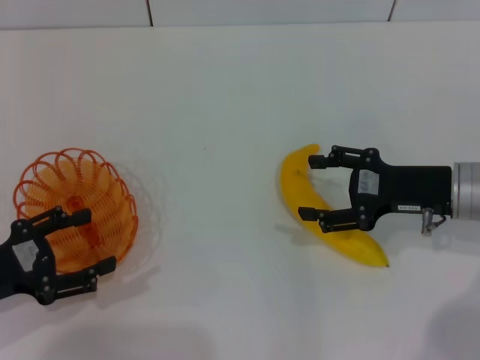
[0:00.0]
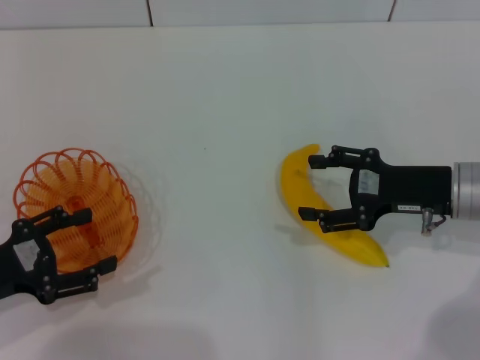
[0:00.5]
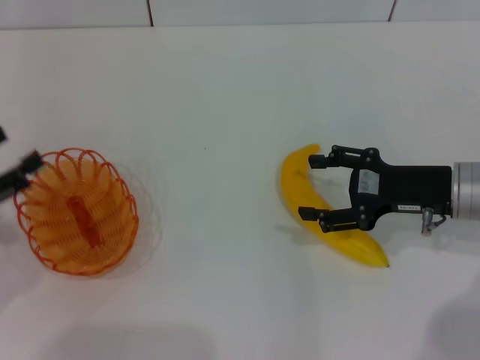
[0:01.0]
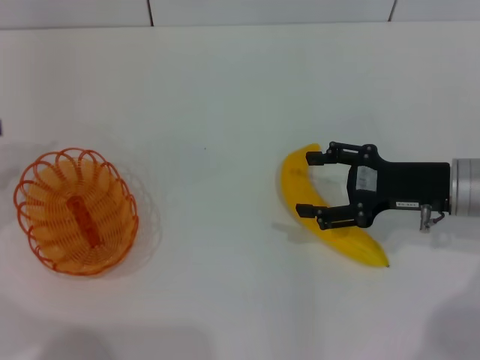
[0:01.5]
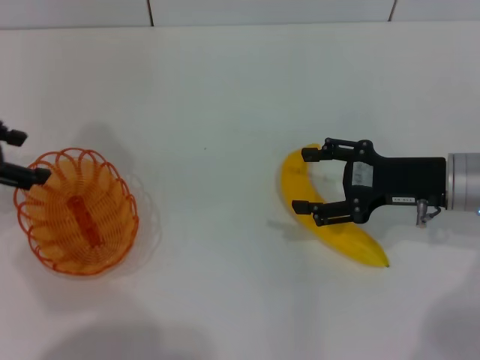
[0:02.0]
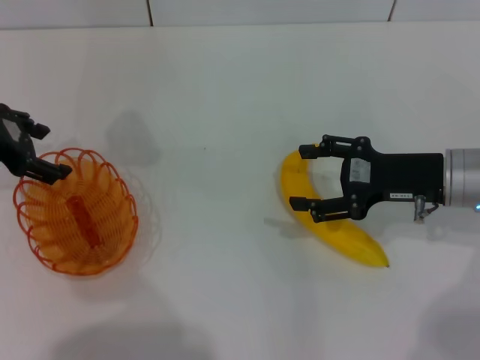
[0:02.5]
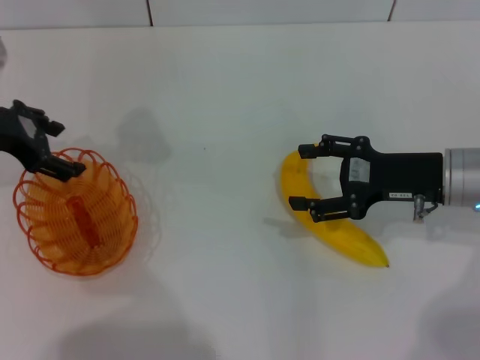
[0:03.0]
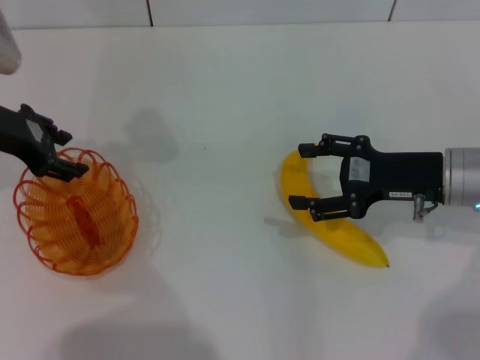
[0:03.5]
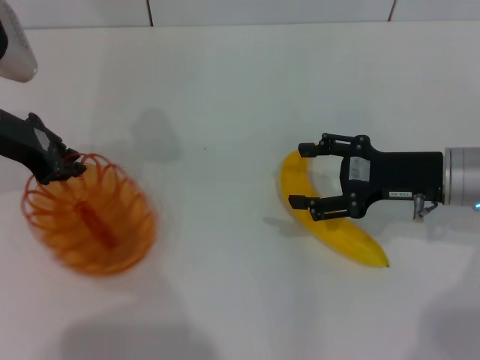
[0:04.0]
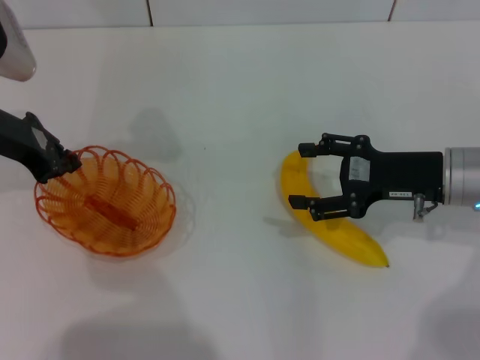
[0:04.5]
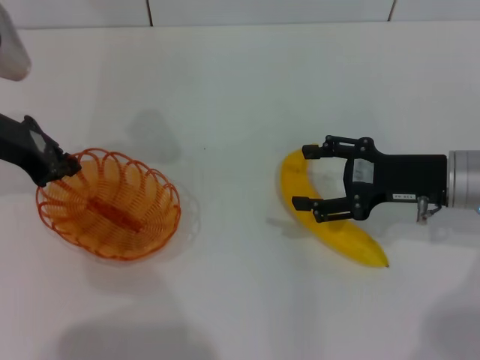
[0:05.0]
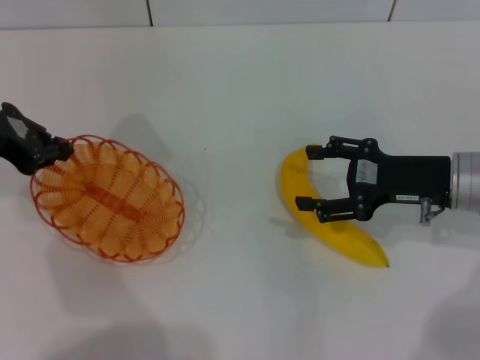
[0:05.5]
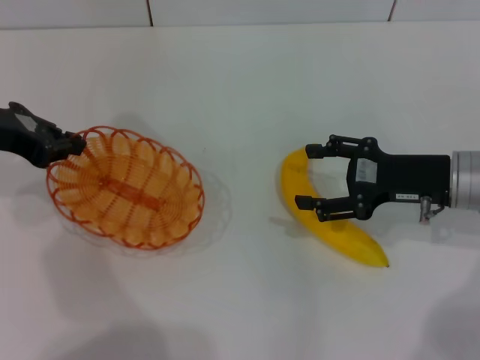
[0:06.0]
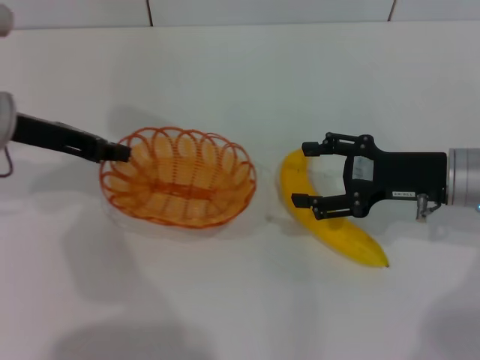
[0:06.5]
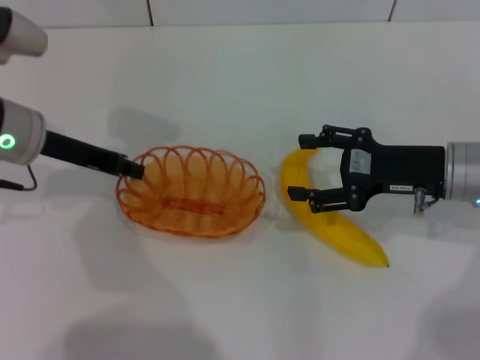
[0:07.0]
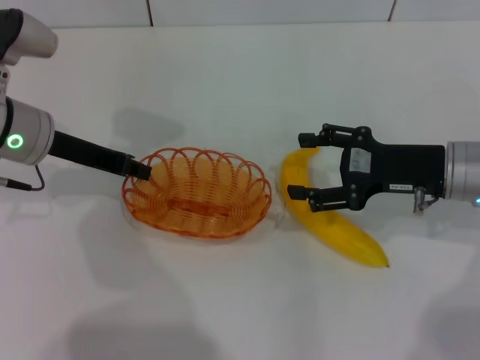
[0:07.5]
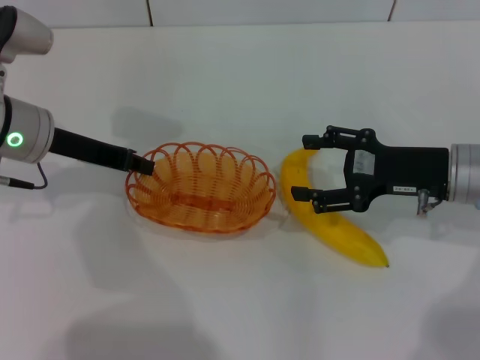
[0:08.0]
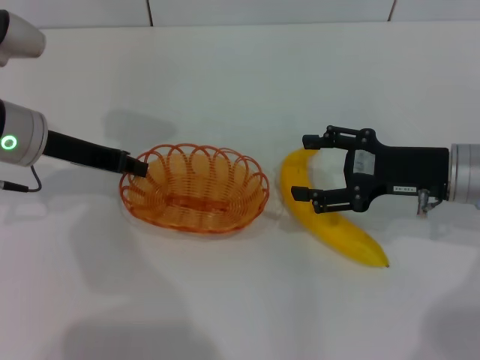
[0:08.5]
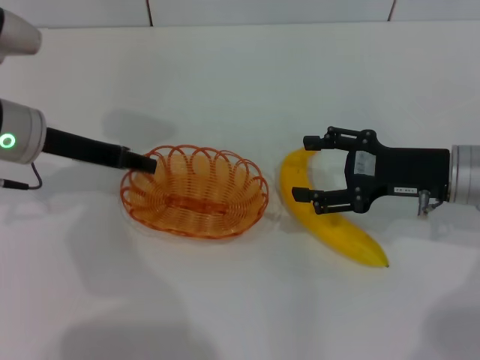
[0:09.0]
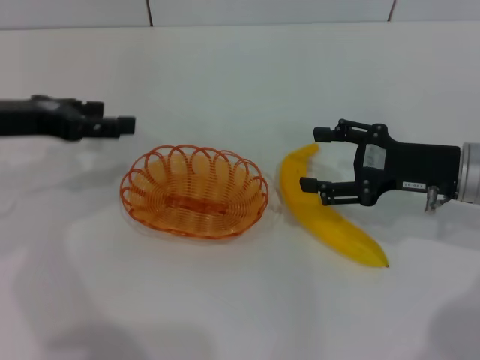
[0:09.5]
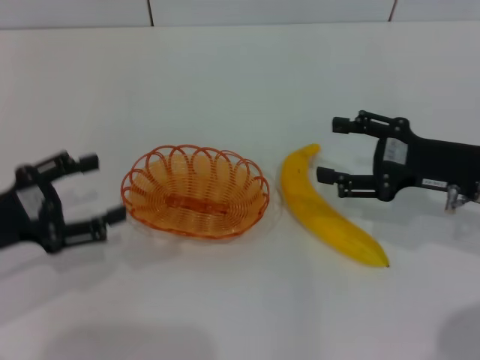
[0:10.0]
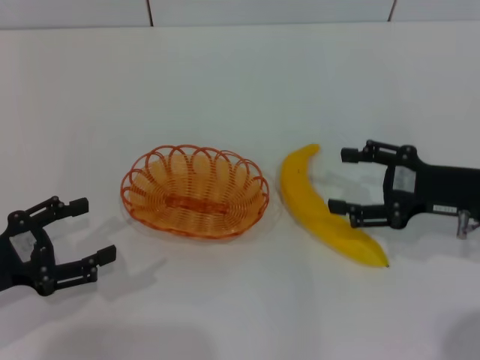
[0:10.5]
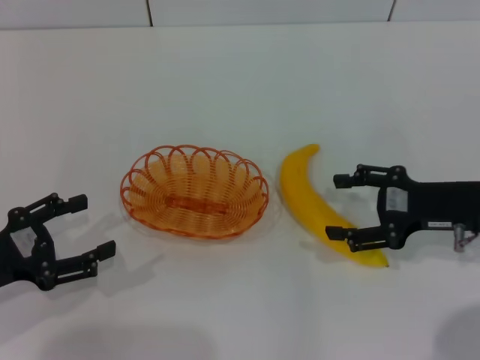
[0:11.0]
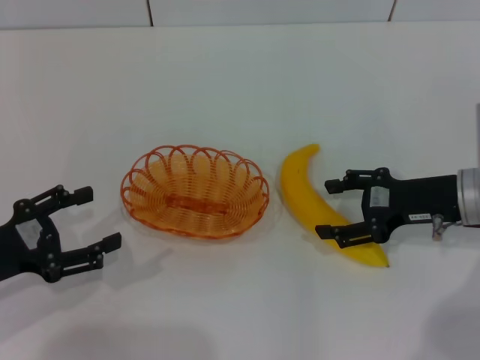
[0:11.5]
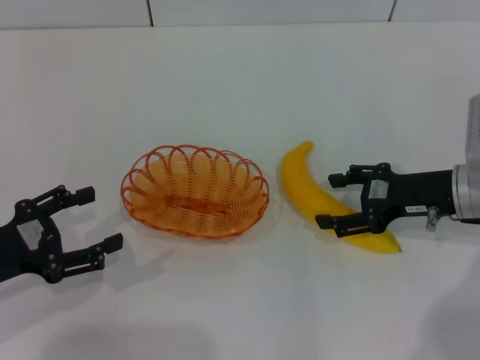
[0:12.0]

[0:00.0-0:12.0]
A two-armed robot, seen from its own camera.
Step, 0:00.0 to 0:05.5: Pick up the basket with the left gripper.
Step, 0:06.0 to 0:09.0: Place the basket in the center of view with the left gripper.
0:00.0 to 0:02.0: The left gripper shifts approximately 20 cm forward and upward.
0:02.0 to 0:04.0: The left gripper travels to the right by roughly 5 cm, and closes.
0:04.0 to 0:06.0: The left gripper closes.
0:06.0 to 0:08.0: The left gripper is displaced to the right by some 5 cm.
0:08.0 to 0:10.0: The left gripper goes roughly 15 cm backward and to the left, and opens.

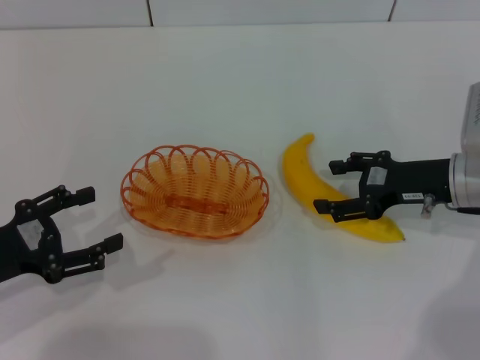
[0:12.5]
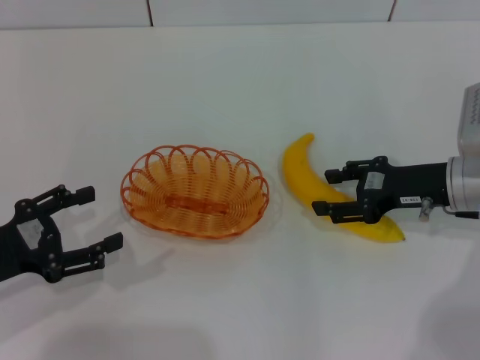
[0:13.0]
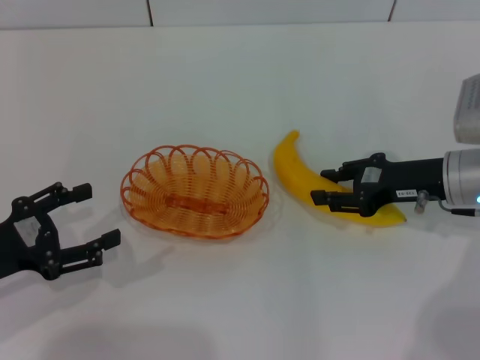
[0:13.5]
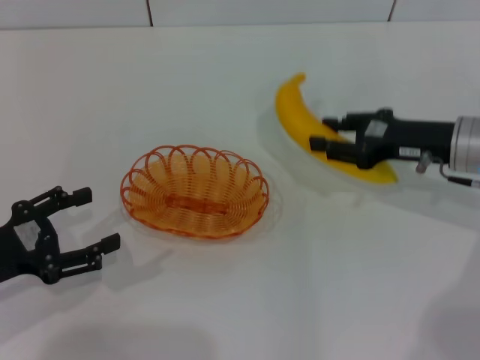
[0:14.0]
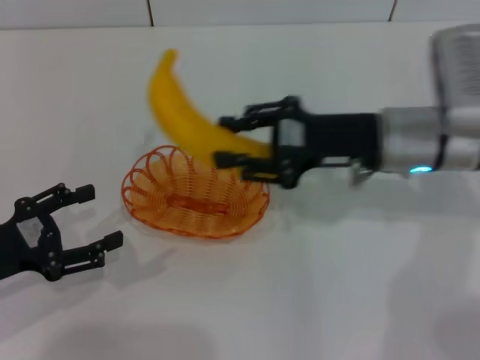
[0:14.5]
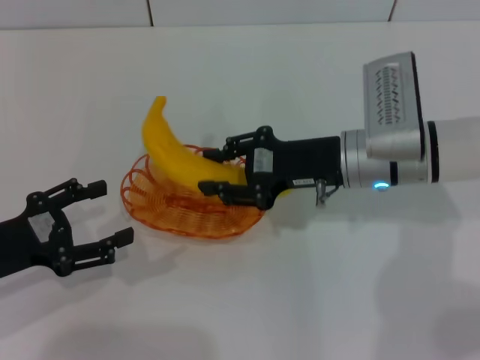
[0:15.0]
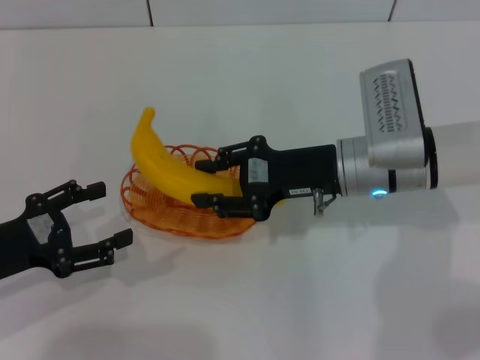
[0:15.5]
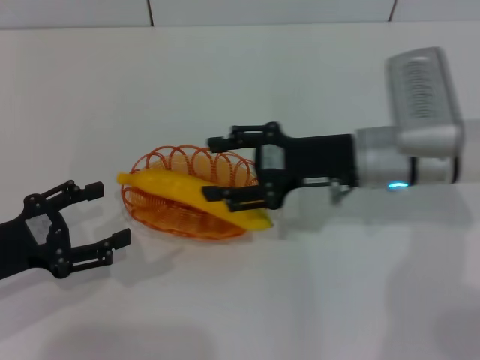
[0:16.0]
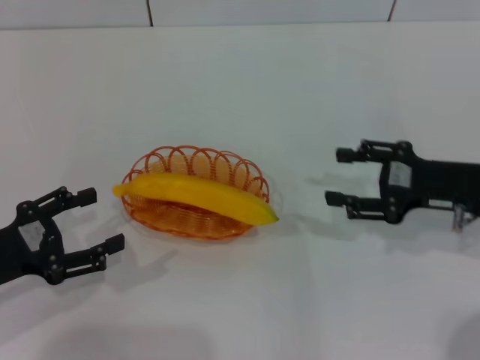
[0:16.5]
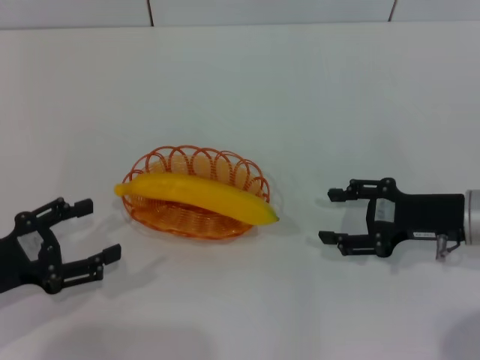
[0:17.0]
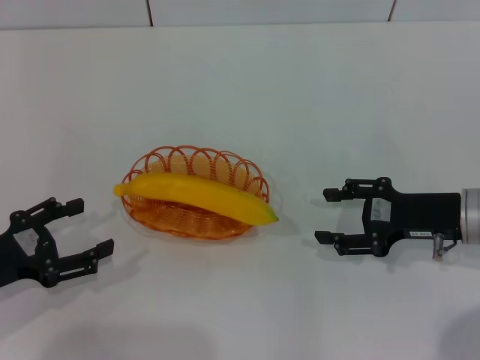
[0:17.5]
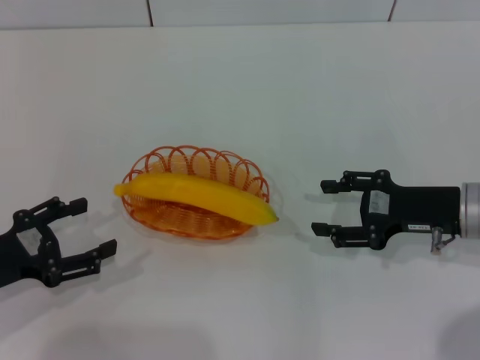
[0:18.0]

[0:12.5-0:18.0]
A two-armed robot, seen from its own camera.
Step, 0:14.0 to 0:15.5: Place the banana into the basket with the right gripper.
0:12.5 to 0:14.5: The right gripper goes some 10 cm to the left, and closes its fingers.
0:14.5 to 0:16.0: The right gripper opens up.
0:16.0 to 0:18.0: The right gripper shifts some 10 cm to the right and backward.

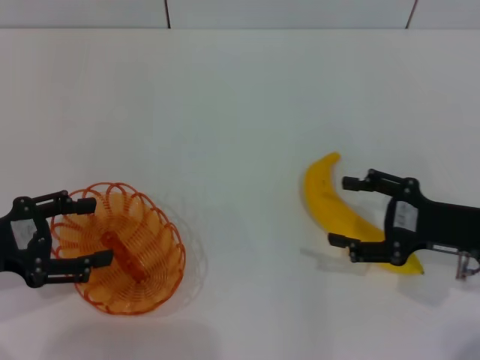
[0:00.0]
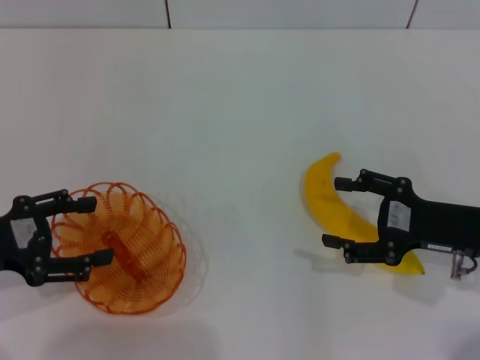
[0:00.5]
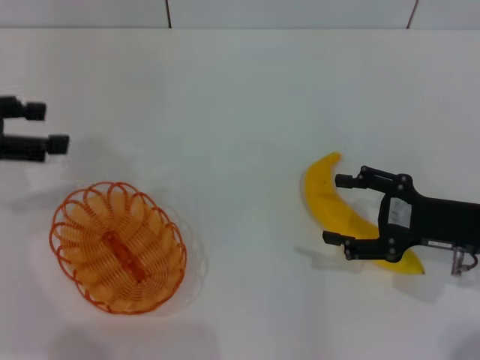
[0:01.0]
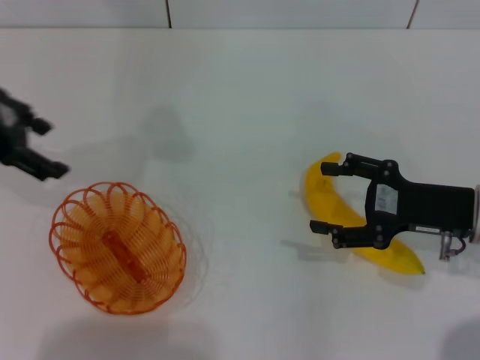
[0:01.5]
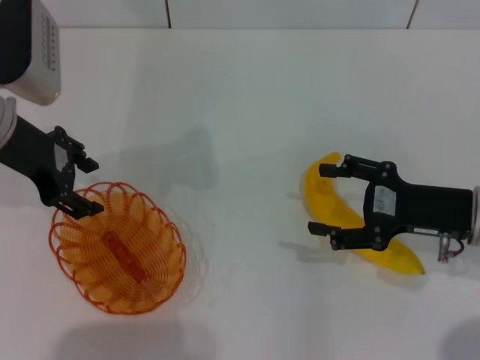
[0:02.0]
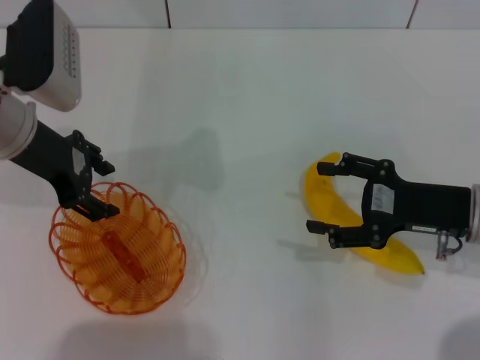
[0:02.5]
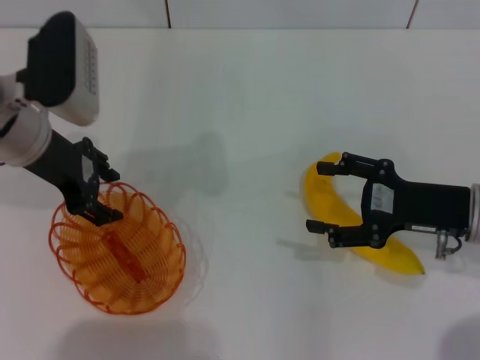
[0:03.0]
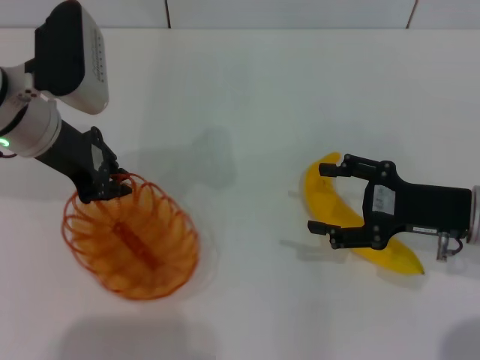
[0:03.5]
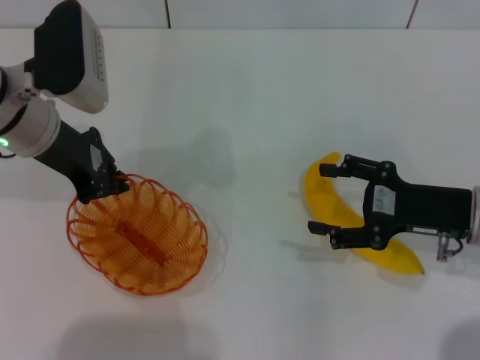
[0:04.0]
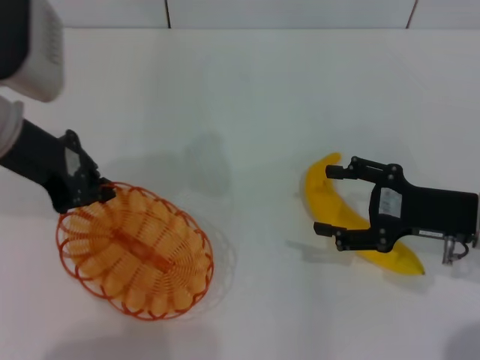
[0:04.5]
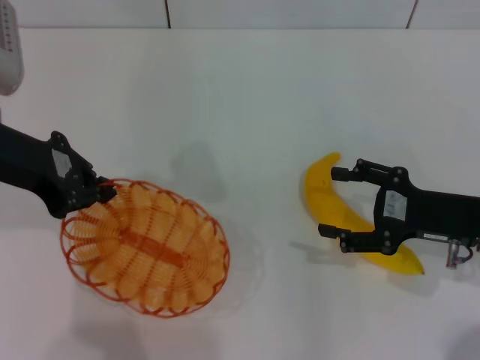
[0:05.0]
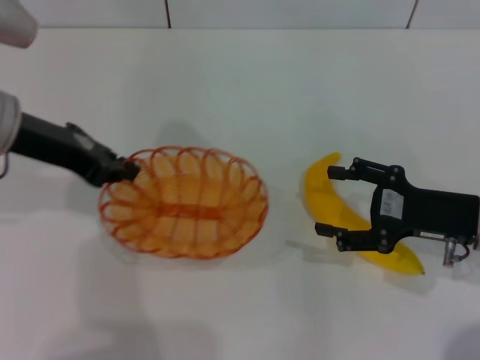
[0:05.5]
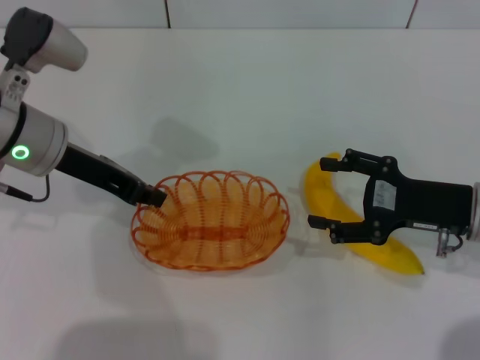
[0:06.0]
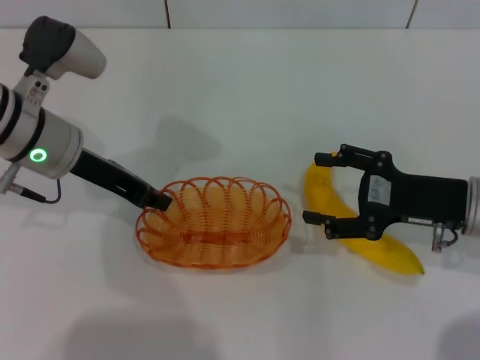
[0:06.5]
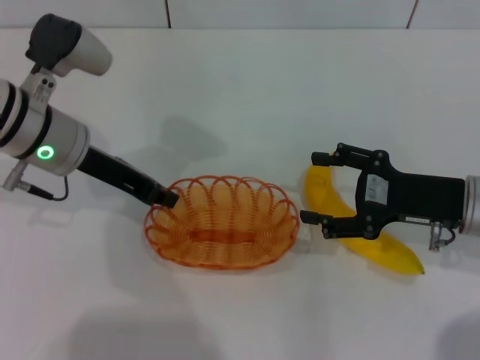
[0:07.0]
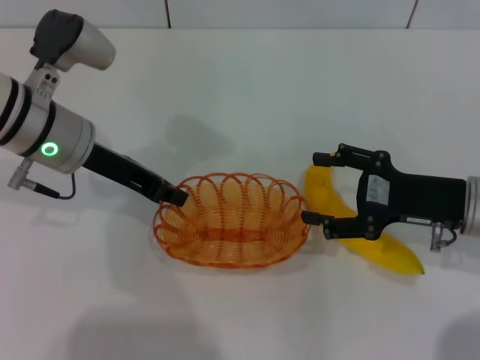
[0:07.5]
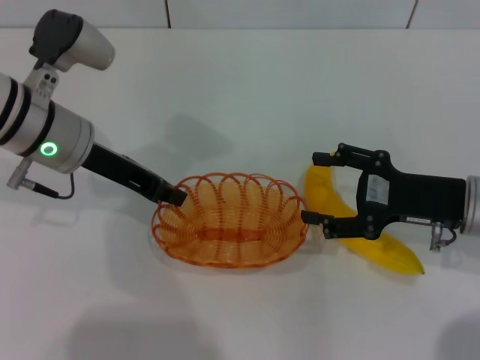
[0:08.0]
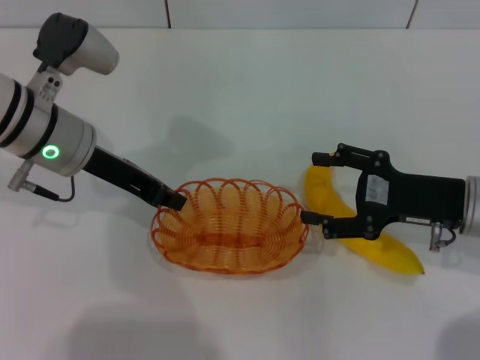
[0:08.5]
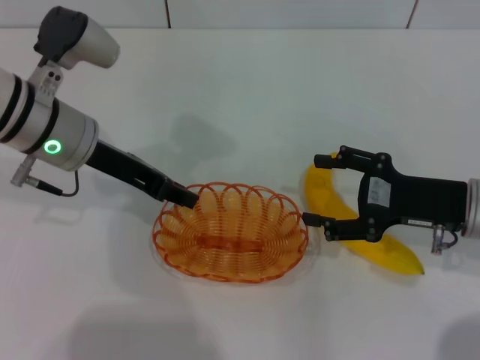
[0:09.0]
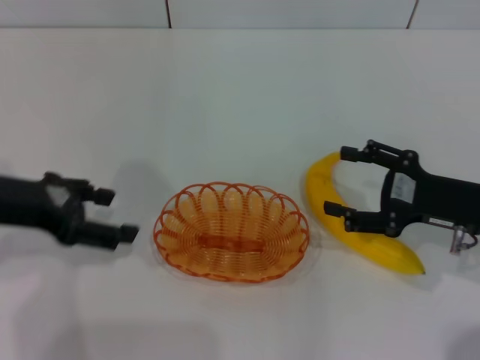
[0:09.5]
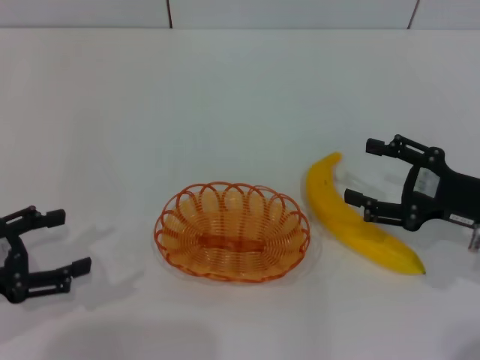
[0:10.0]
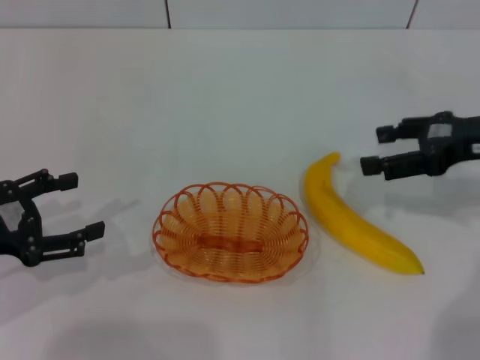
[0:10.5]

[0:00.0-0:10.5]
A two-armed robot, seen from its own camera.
Step, 0:00.0 to 0:04.5: Pick up the basket with the left gripper.
Step, 0:05.0 to 0:09.5: Place the basket in the center of view with the left gripper.
0:00.0 to 0:02.0: The left gripper heads forward, to the right and upward, covering some 15 cm.
0:02.0 to 0:04.0: The left gripper closes up.
0:06.5 to 0:08.5: Both grippers stay put.
0:08.5 to 0:10.5: The right gripper travels upward by about 10 cm. Meanwhile the left gripper moves to the left and backward, approximately 20 cm, and opens up.
